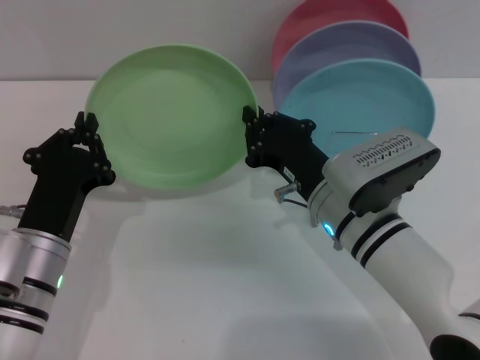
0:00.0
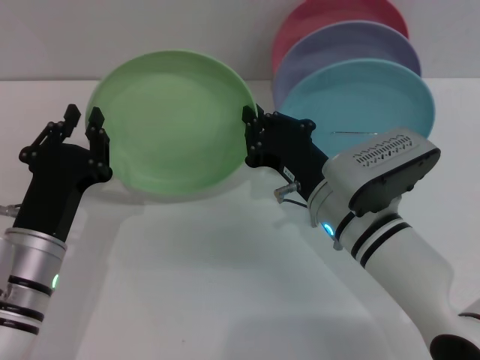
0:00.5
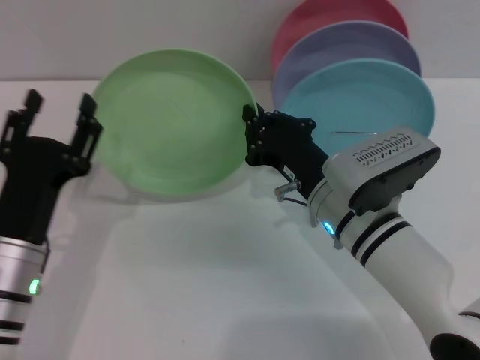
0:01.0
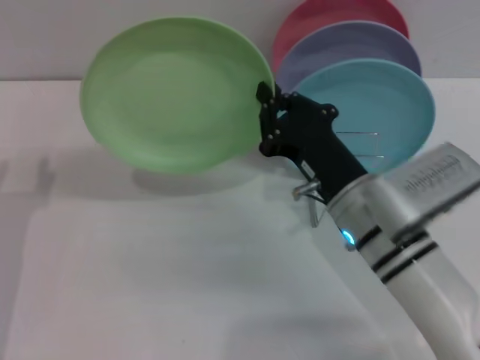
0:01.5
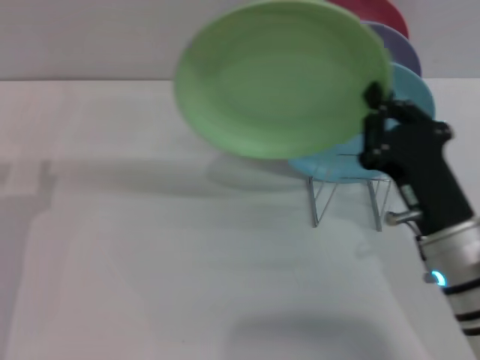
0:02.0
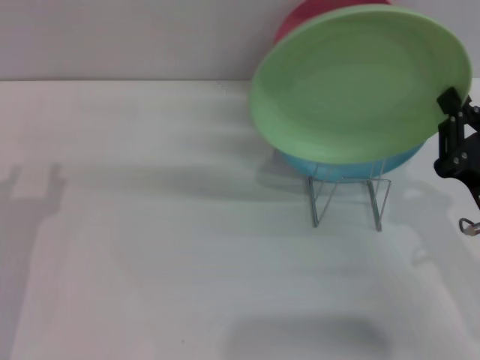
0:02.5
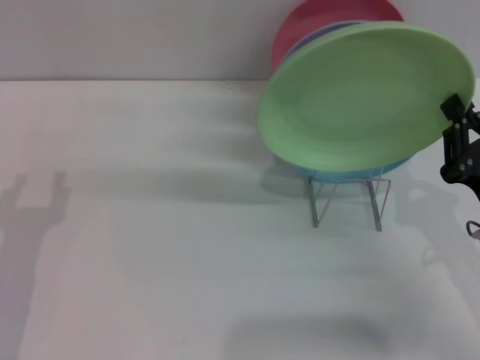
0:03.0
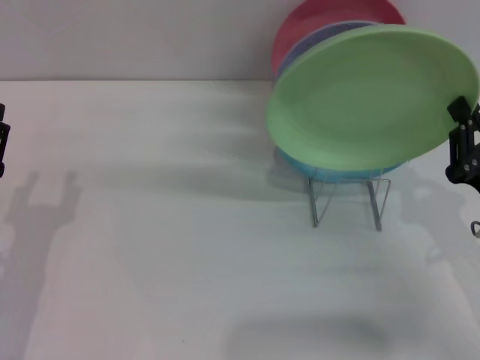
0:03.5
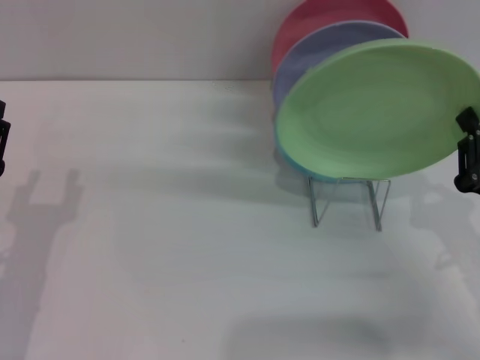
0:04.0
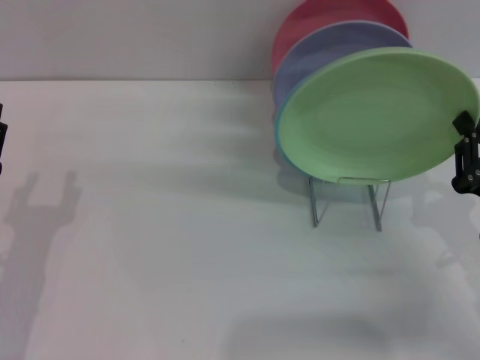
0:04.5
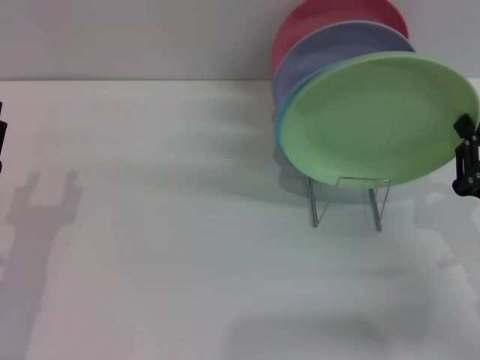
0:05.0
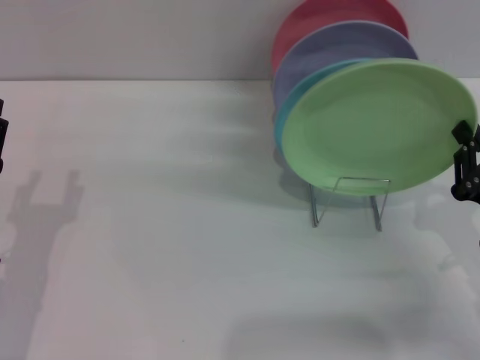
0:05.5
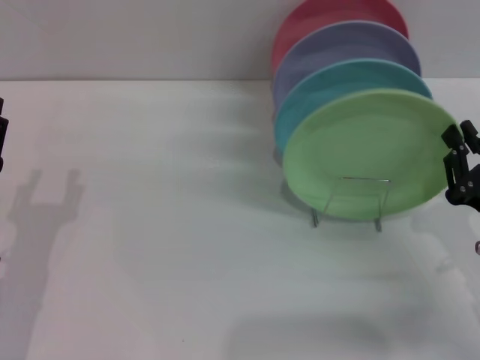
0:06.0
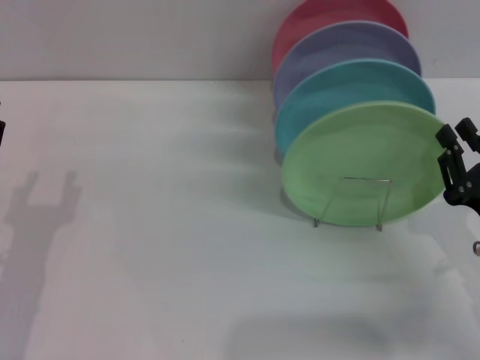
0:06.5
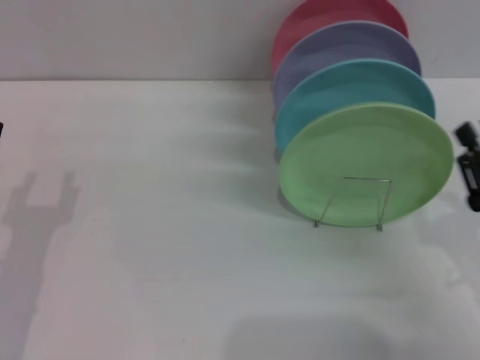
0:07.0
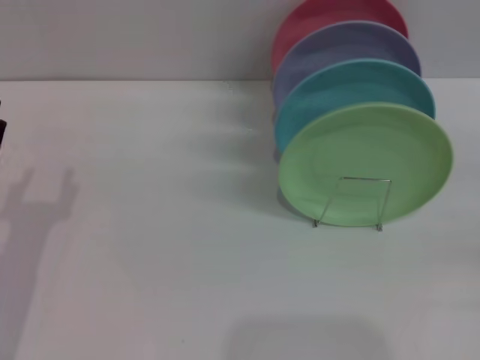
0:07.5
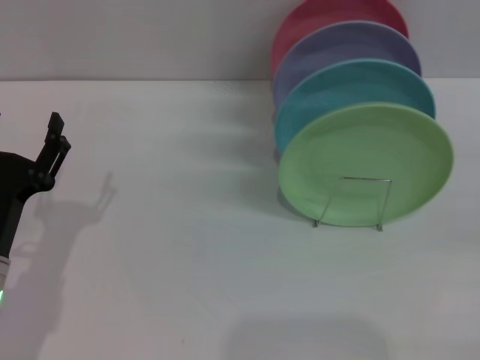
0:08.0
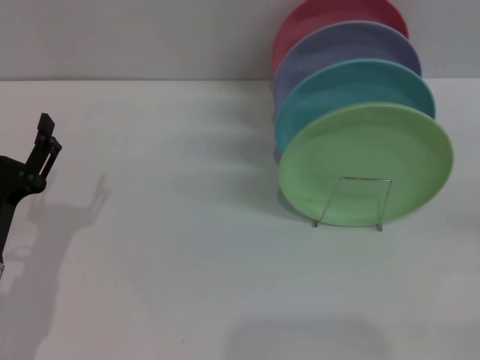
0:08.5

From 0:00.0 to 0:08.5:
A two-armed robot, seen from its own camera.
Task of the whole recording: Grip the plate with one hand, pass it to the other, then set it on the shelf.
Step, from 0:02.0 to 0:06.5: Place the plate on the shelf with the right gripper.
From 0:00.0 to 0:02.0: The right gripper goes about 10 cm backward and to the right. Meanwhile the left gripper heads to the left, covering approximately 10 cm, and opens up.
From 0:02.0 to 0:04.0: The right gripper travels to the right by roughly 10 cm.
From 0:04.0 to 0:06.5: The grippers move only a little.
From 0:06.5 to 0:08.5: The right gripper is displaced to the right by some 15 cm, and opens its fingers.
